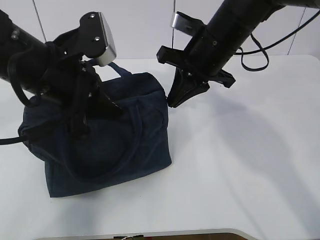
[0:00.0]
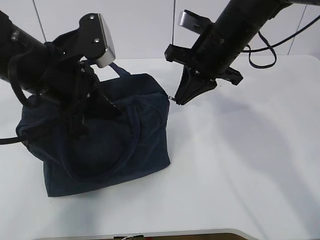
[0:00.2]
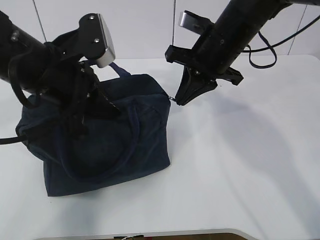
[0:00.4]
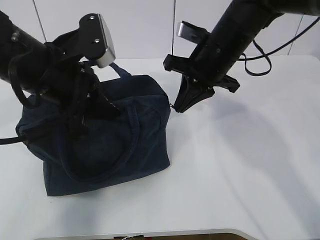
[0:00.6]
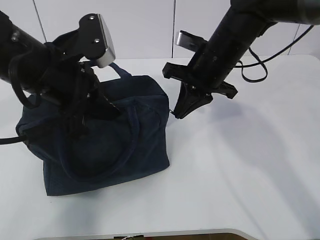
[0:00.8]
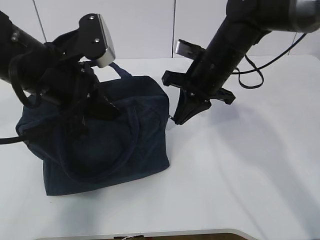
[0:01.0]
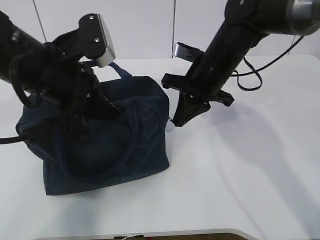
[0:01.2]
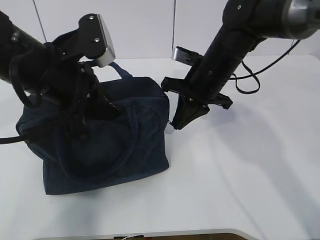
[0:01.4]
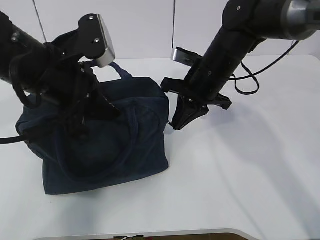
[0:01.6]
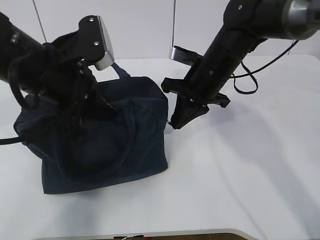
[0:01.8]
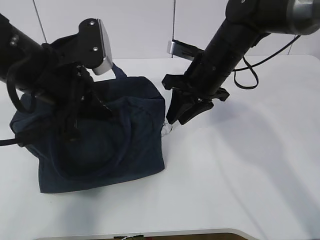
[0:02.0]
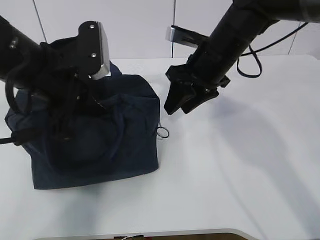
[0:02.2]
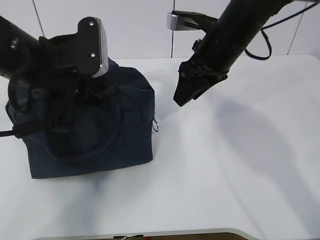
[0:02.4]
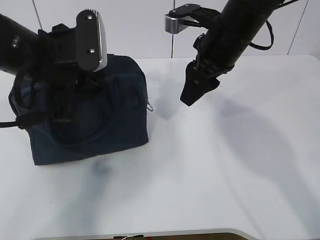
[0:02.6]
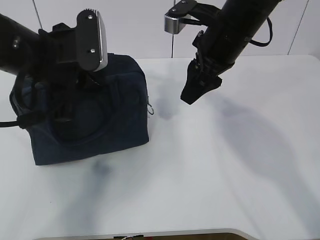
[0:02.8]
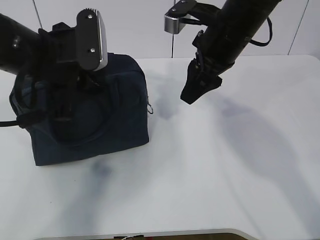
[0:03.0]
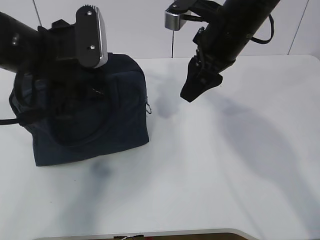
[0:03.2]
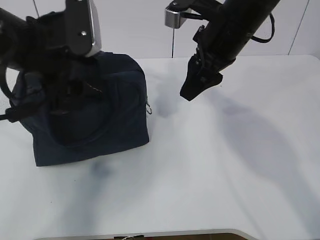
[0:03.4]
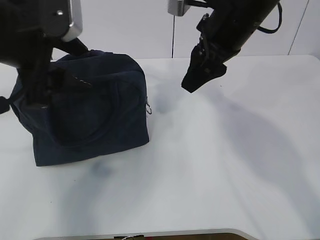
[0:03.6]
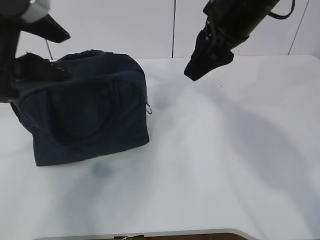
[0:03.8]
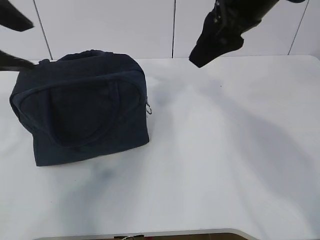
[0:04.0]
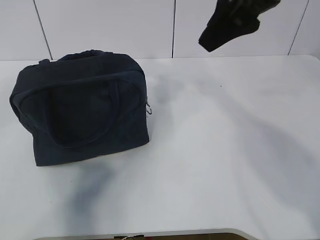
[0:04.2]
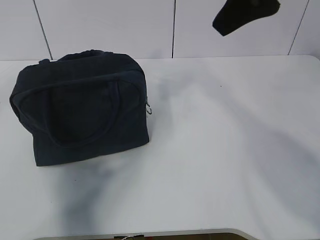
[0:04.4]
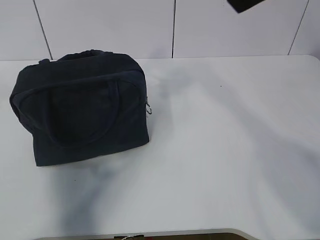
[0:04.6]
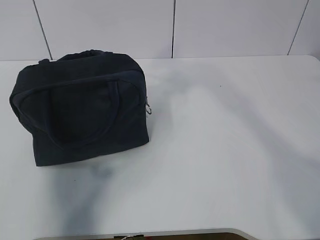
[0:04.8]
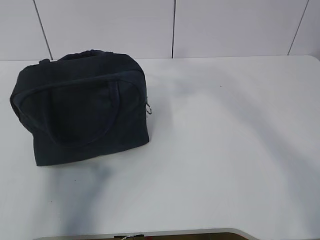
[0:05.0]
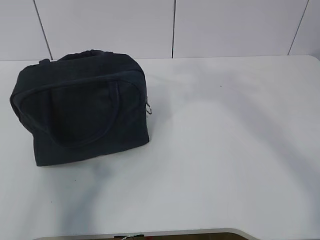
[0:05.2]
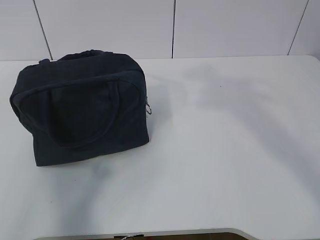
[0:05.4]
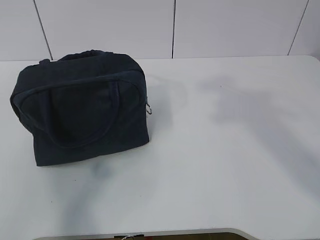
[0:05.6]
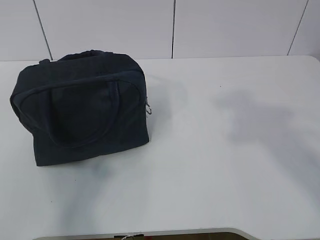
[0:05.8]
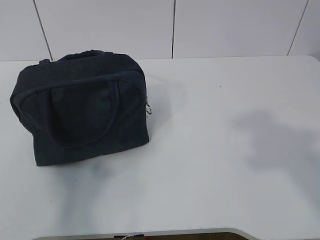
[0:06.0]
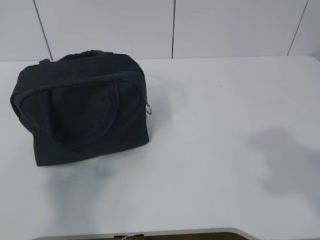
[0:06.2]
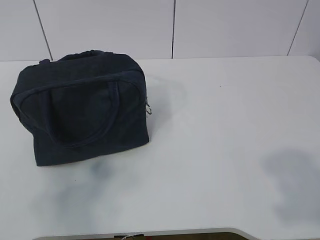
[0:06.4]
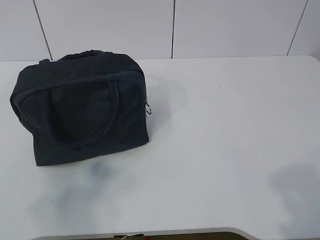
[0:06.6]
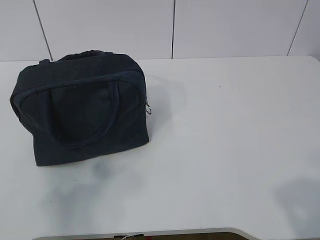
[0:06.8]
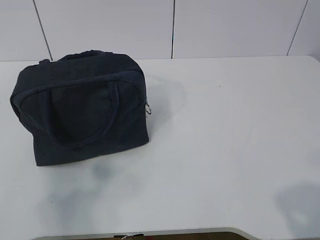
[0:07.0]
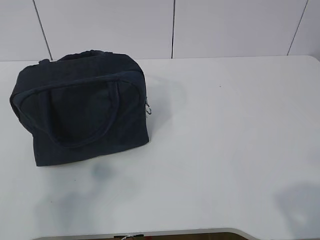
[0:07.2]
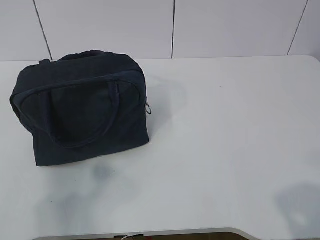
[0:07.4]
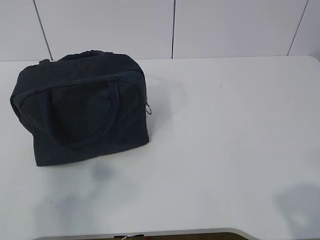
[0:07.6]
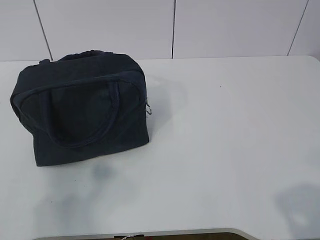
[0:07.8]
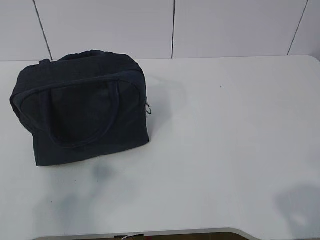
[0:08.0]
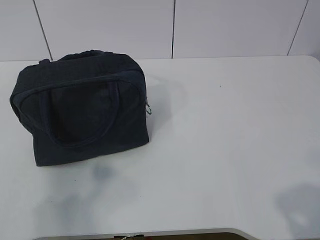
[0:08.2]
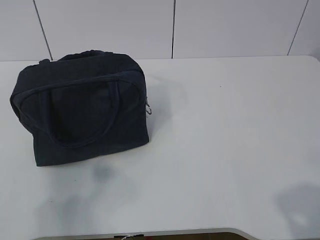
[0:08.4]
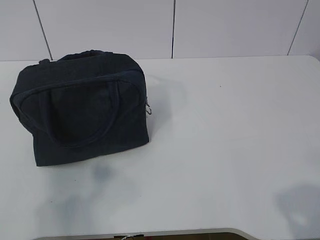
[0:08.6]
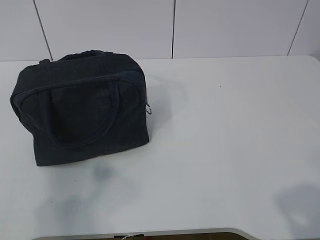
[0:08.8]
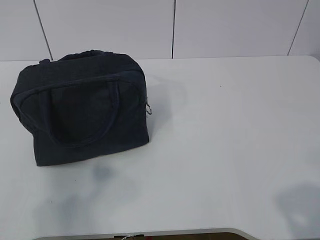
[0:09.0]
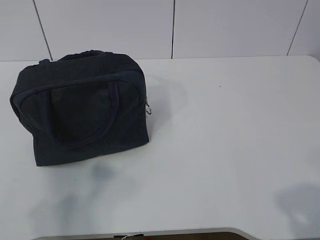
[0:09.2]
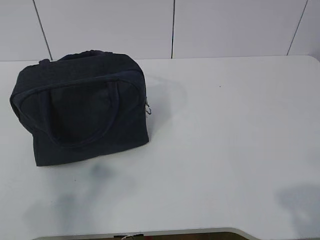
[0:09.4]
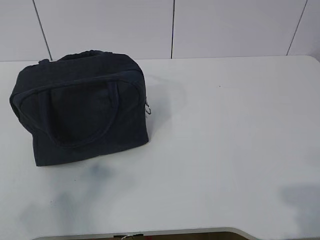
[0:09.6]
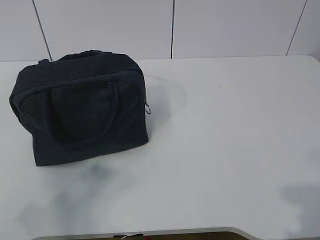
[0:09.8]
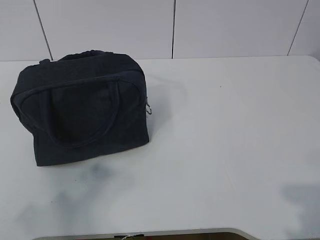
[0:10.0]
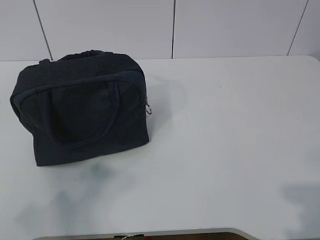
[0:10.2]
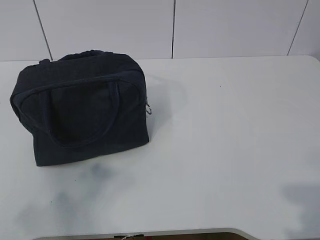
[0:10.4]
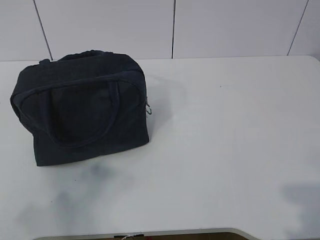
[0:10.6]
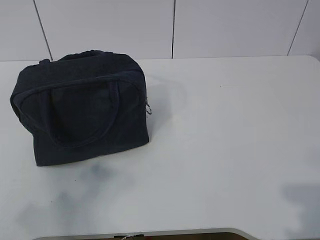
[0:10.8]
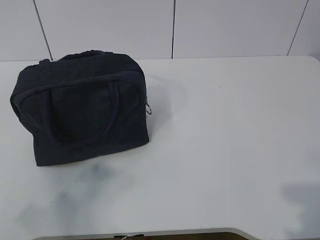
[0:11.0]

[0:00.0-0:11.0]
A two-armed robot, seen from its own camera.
0:00.0 to 0:01.6: The right gripper shifts roughly 5 cm downward.
0:01.6 to 0:03.2: The right gripper heads upward, covering about 10 cm, and opens up, while the left gripper opens up.
0:03.2 to 0:04.8: The left gripper heads backward, upward and to the left, covering about 25 cm; the right gripper travels upward and backward by approximately 20 cm.
0:04.8 to 0:06.2: The left gripper shifts some 15 cm backward.
0:06.2 to 0:07.8: The right gripper travels downward by some 15 cm.
